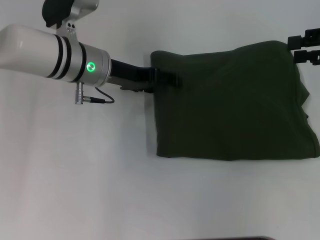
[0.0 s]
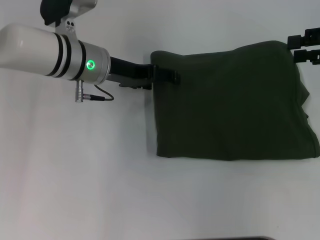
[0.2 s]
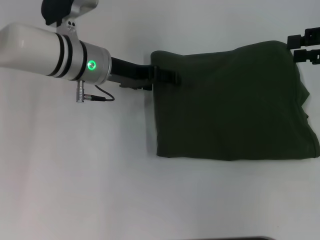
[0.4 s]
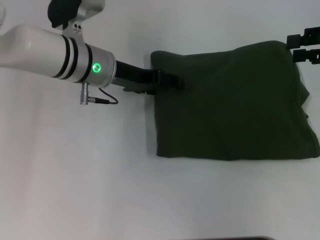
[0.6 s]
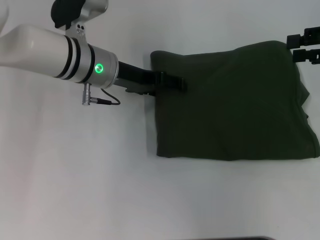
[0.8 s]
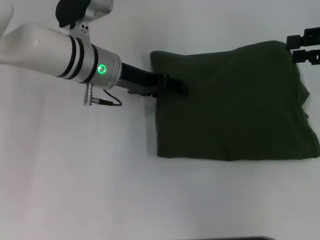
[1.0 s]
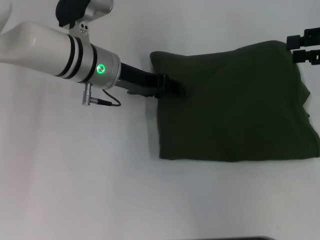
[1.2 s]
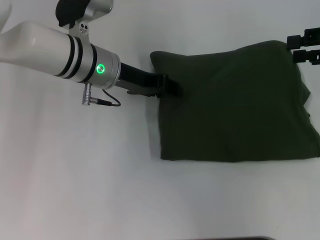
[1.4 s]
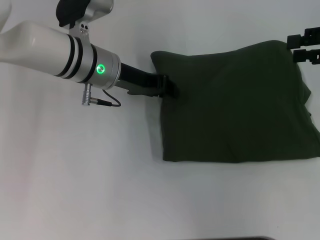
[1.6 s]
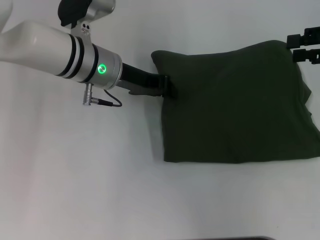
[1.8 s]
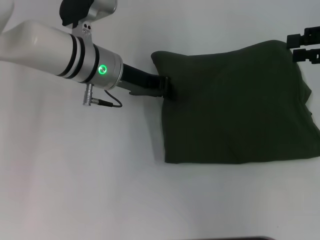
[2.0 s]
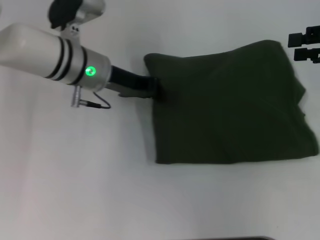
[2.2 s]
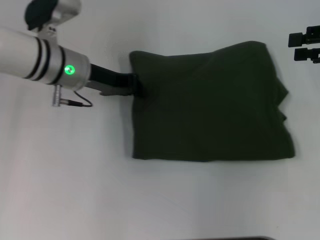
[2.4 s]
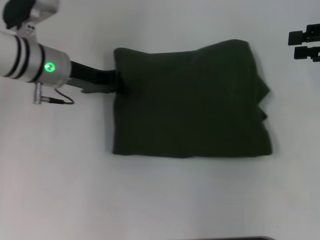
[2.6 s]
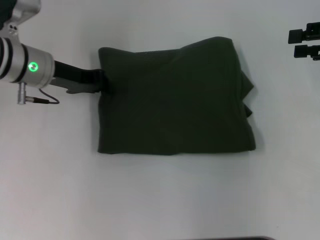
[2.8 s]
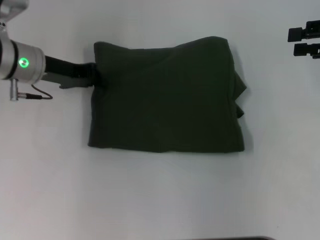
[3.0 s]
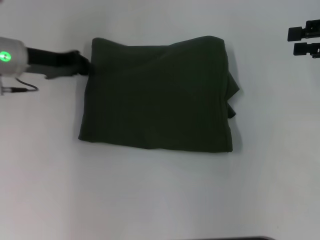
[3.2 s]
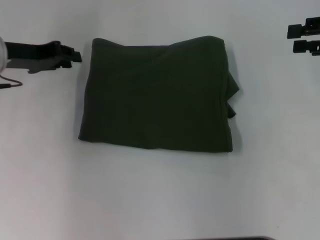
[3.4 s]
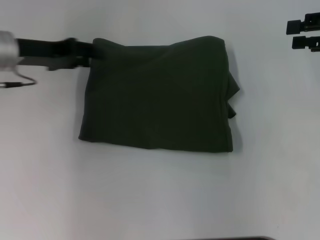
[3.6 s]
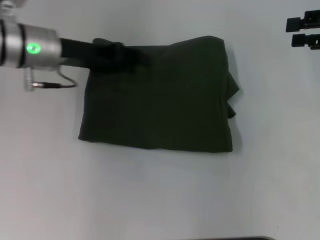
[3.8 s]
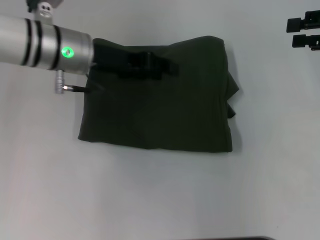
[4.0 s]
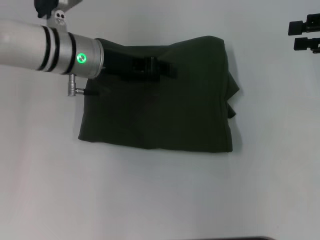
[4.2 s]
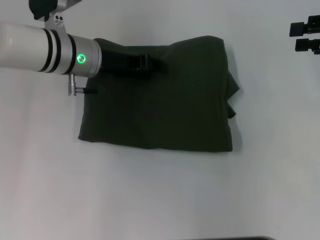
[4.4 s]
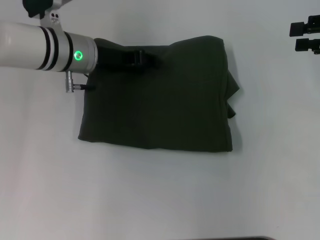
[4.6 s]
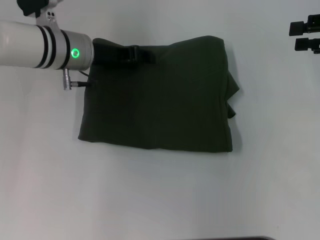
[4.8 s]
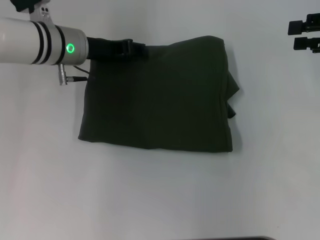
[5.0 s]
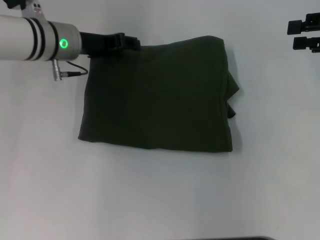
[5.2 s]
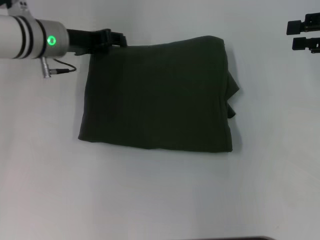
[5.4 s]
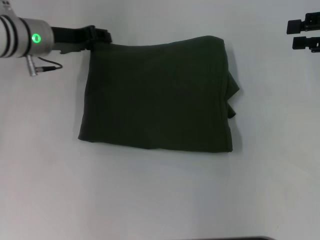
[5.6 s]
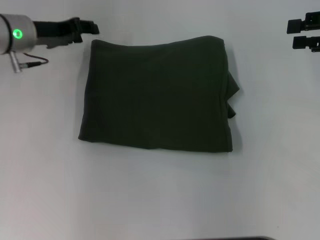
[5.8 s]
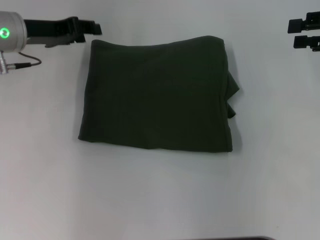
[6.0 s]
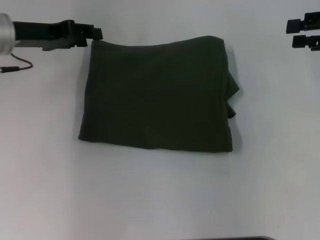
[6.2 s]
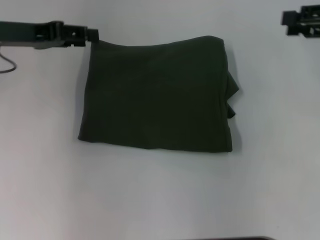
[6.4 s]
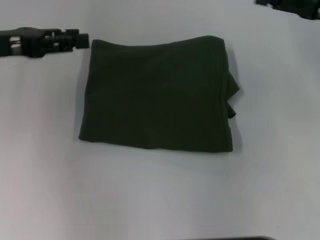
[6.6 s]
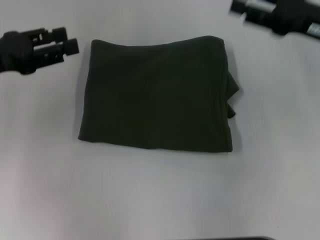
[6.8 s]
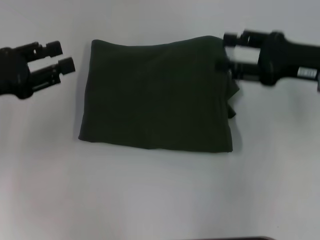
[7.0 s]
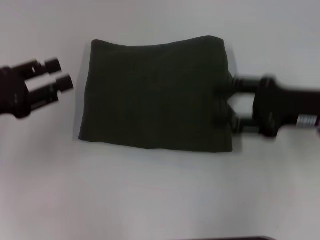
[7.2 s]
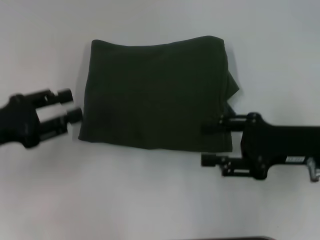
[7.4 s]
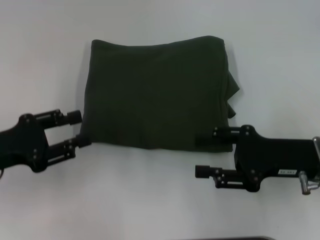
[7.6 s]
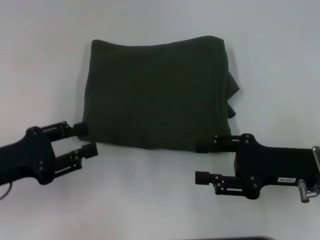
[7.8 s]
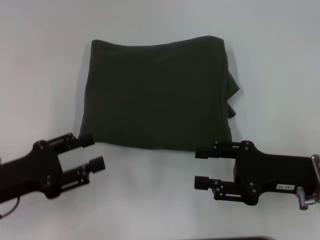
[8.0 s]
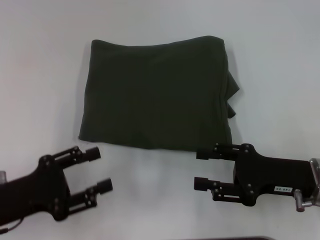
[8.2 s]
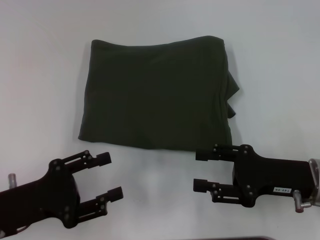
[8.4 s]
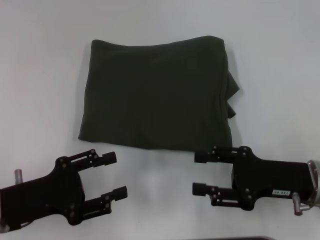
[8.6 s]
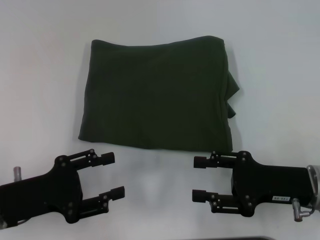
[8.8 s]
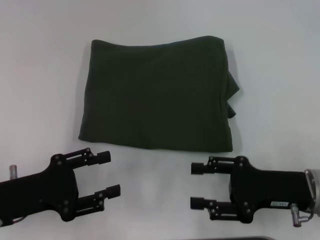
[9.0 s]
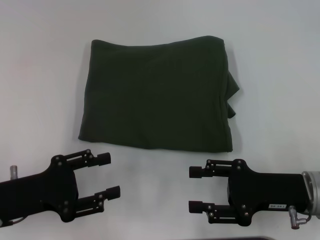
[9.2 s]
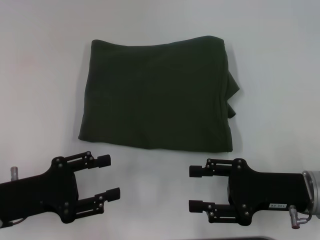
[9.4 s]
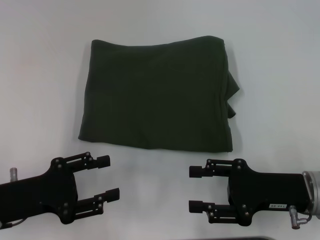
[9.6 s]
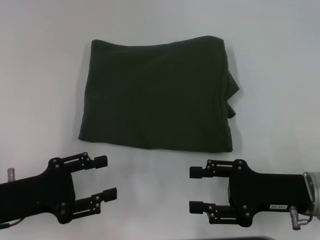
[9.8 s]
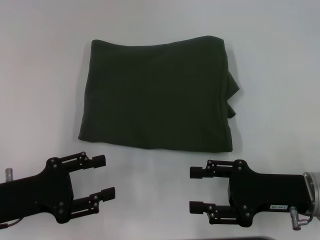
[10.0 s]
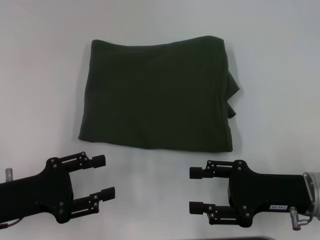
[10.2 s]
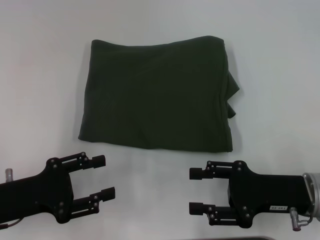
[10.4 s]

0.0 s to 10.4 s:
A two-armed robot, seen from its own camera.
0.0 to 1.4 s: The grippers move only a little.
1.4 to 3.0 s: The left gripper shifts roughly 10 cm to the left, and closes its fingers.
3.0 to 4.4 s: The left gripper heads to the right, covering approximately 10 cm, and opens.
4.4 to 6.0 s: The left gripper travels to the left by approximately 10 cm.
6.0 to 7.4 s: The right gripper travels to the left, backward and downward by about 20 cm. The left gripper heads backward and to the left, covering about 15 cm.
7.4 to 9.0 s: The left gripper goes approximately 10 cm backward and downward; the right gripper ends up about 5 cm from where it was.
9.0 to 10.4 s: Both grippers stay about where they are.

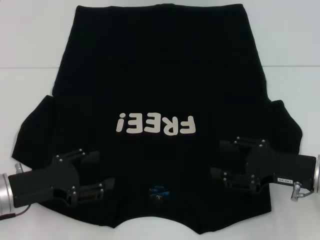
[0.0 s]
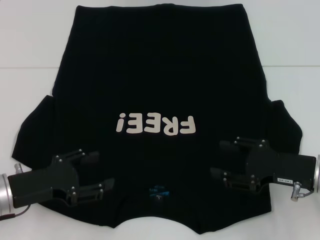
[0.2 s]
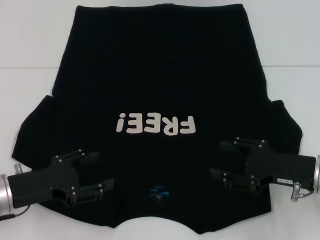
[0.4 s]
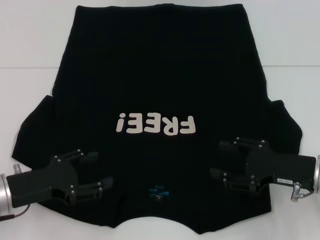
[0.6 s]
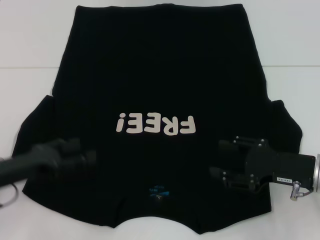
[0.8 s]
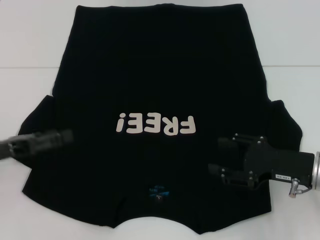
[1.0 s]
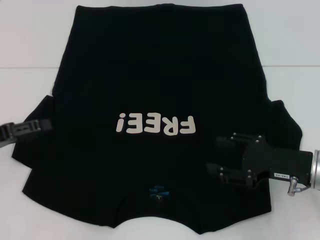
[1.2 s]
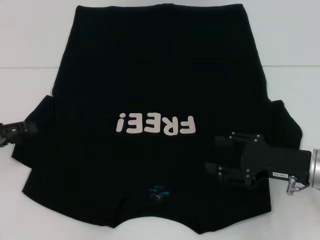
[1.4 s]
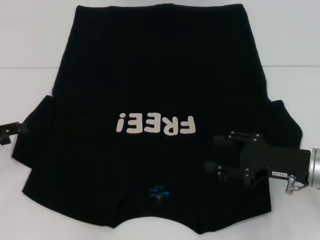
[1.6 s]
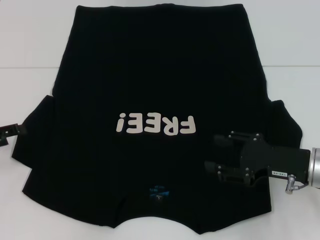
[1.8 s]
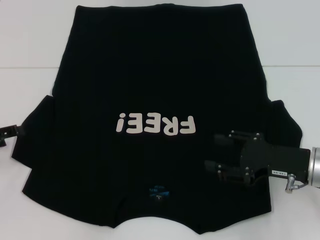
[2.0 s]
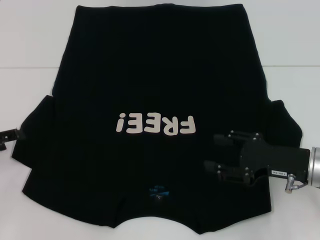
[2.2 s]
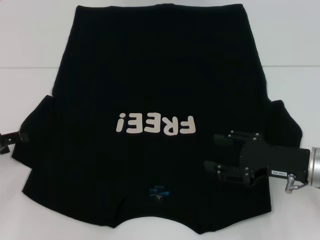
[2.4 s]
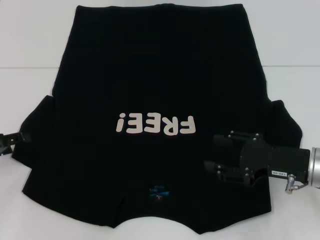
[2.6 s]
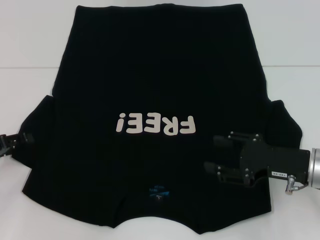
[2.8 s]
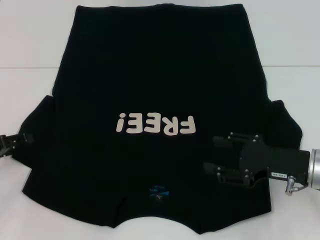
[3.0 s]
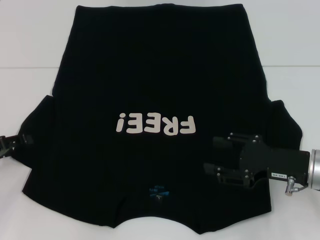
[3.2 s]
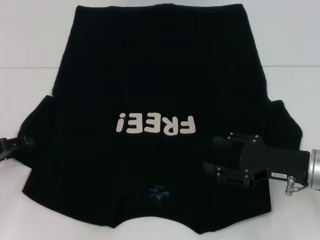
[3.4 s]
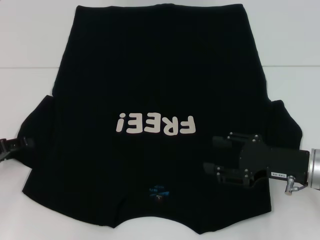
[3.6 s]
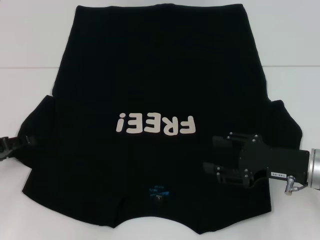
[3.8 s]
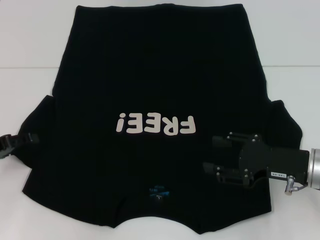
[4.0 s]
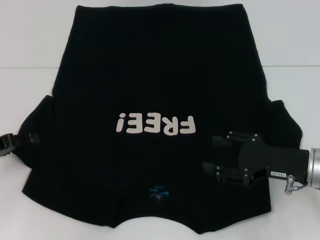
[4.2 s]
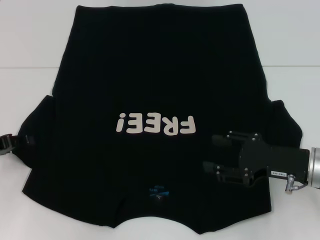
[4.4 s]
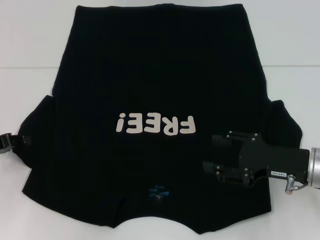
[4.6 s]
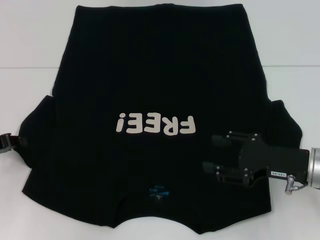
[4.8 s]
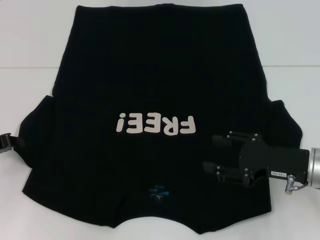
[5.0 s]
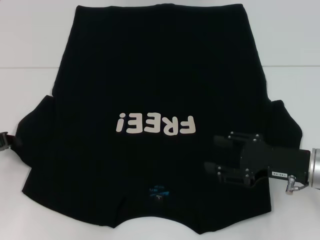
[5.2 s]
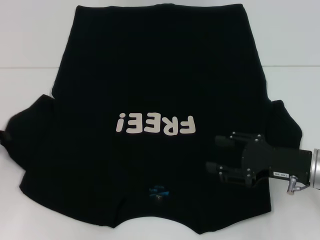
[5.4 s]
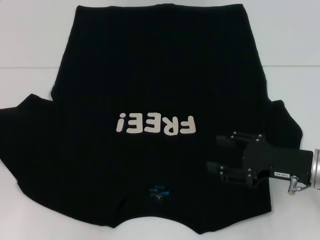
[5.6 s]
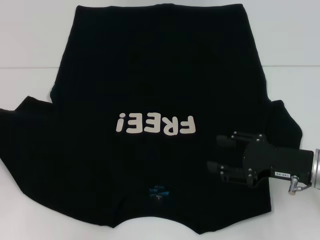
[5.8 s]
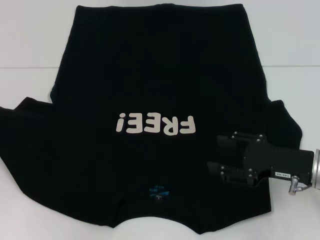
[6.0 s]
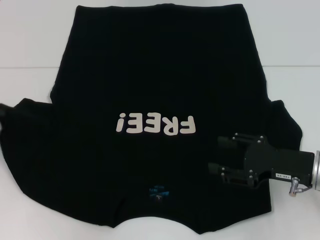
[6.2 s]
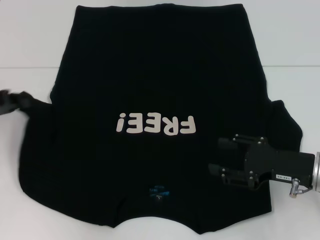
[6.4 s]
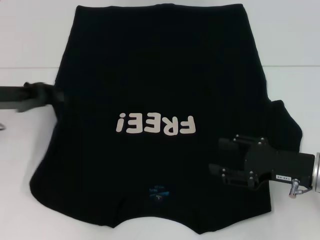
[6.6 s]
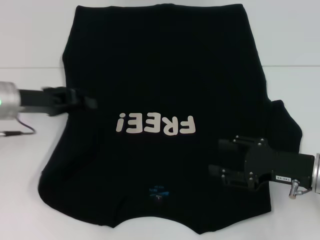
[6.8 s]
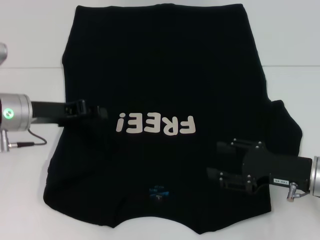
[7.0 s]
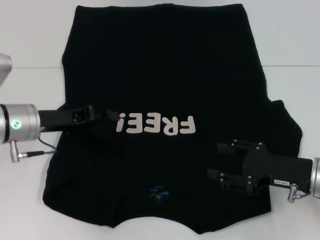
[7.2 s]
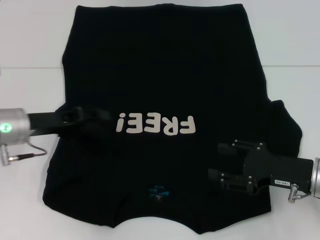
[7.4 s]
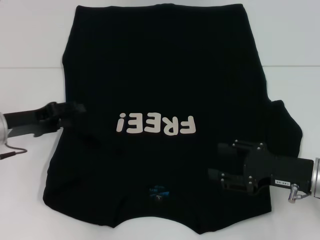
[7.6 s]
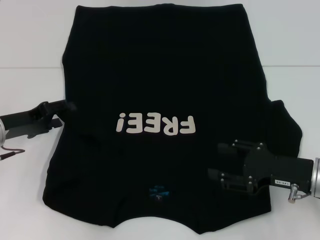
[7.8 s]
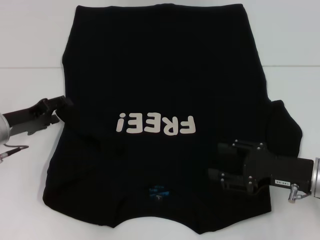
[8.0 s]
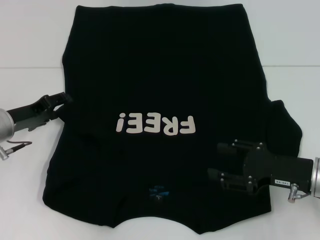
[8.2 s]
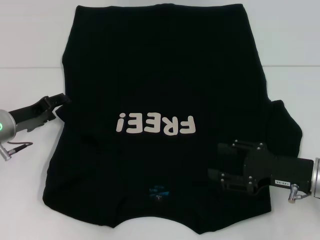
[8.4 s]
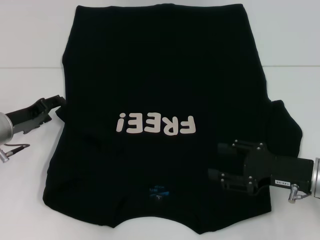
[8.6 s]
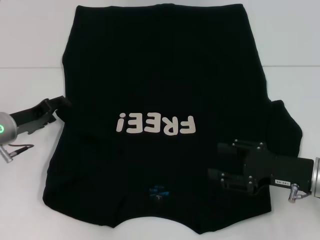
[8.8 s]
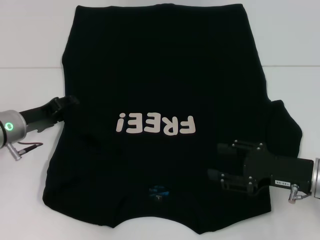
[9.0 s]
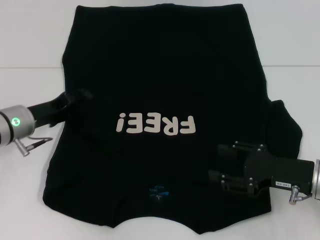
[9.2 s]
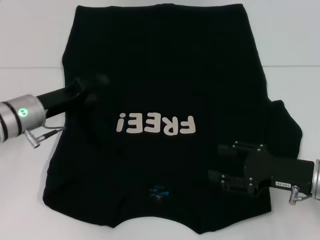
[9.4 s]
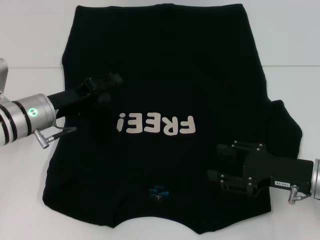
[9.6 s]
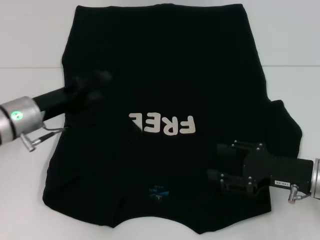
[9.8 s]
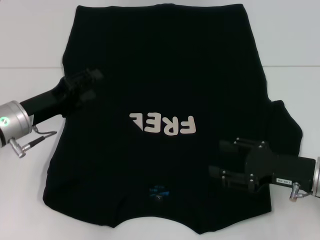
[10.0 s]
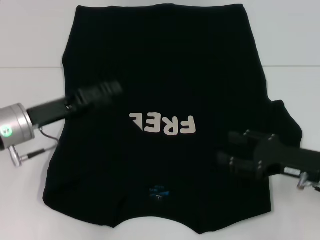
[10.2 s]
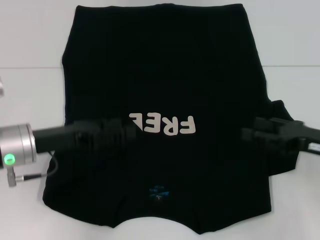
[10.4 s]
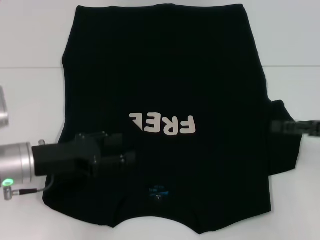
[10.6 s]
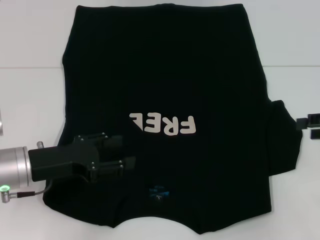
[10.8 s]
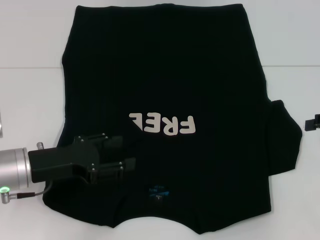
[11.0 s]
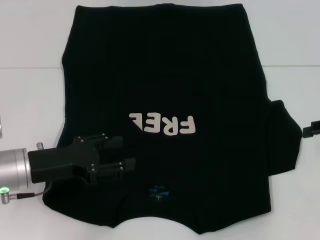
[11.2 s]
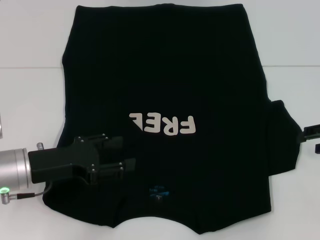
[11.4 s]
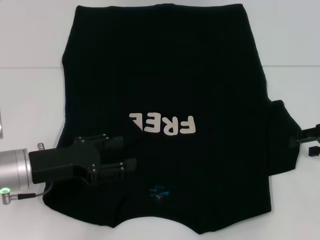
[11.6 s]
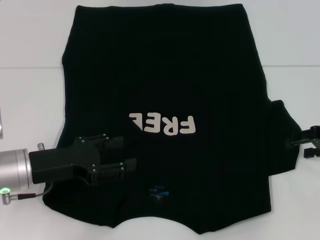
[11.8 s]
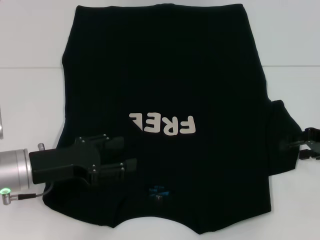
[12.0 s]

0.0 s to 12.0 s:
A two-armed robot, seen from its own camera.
Step, 0.0 to 7.6 s: Fold the bottom left sleeve with your left hand.
0.0 to 1.6 s: The left gripper heads to the left, covering approximately 10 cm.
1.6 to 3.0 s: There are only small adjustments of the grippers.
3.0 to 4.4 s: The two grippers keep their place.
4.4 to 6.0 s: The left gripper ends up some 5 cm from where it was, and closes its fingers.
6.0 to 7.6 s: The left gripper is displaced to the right by roughly 10 cm, and opens.
7.6 to 9.0 s: The grippers make only small movements.
9.0 to 10.4 s: The right gripper ends up approximately 5 cm from where it was, while the left gripper travels backward by about 5 cm.
10.4 to 12.0 s: The right gripper shifts some 5 cm forward.
